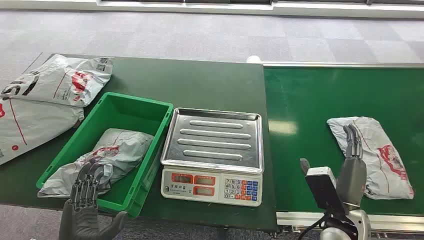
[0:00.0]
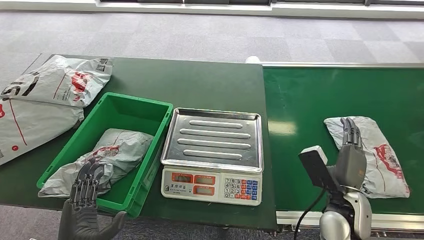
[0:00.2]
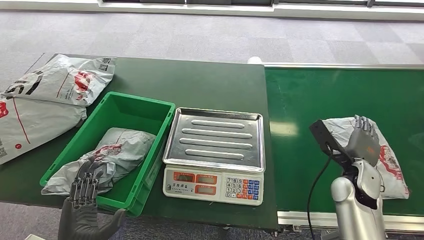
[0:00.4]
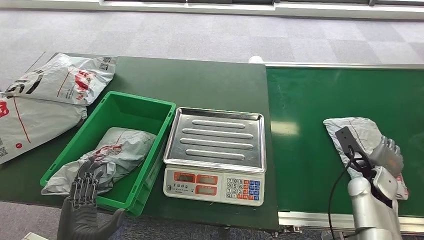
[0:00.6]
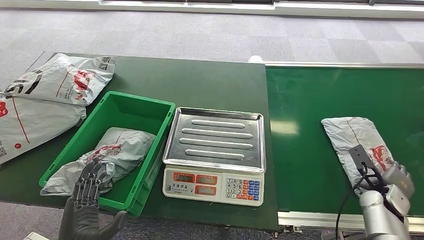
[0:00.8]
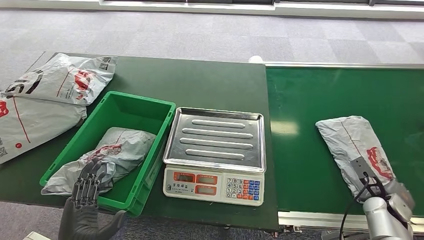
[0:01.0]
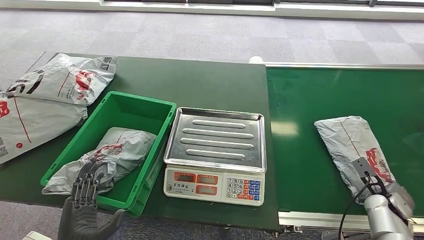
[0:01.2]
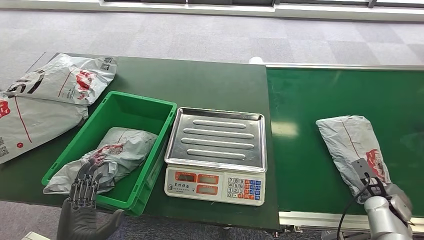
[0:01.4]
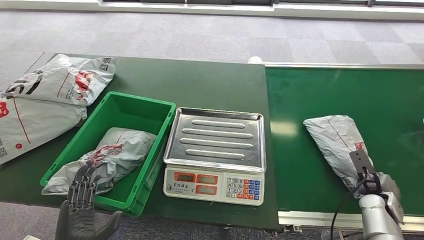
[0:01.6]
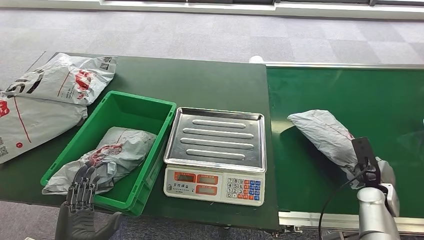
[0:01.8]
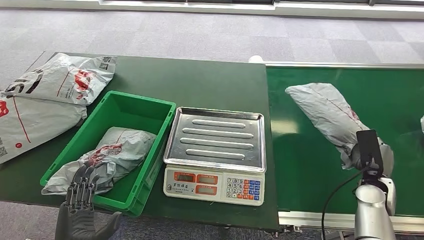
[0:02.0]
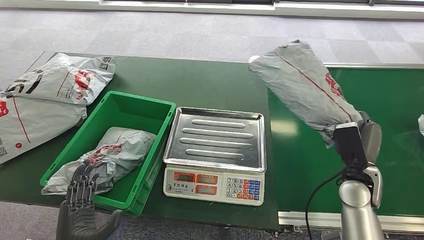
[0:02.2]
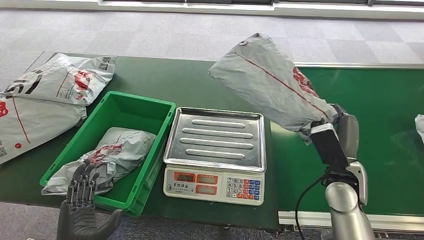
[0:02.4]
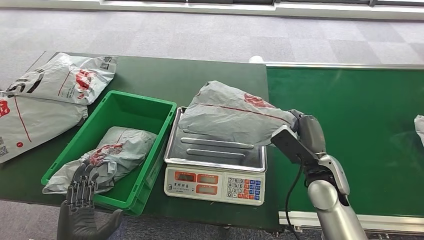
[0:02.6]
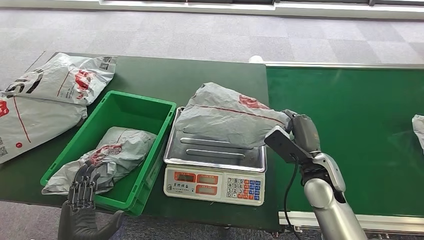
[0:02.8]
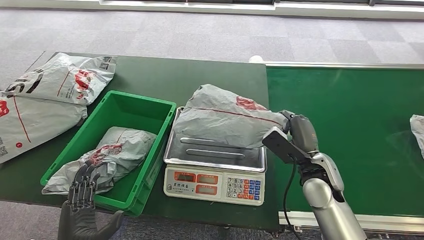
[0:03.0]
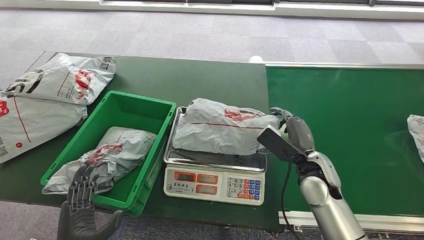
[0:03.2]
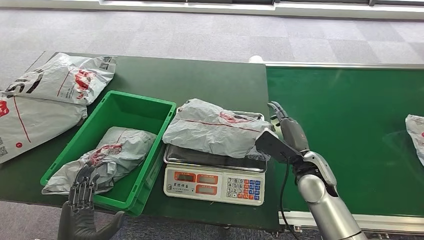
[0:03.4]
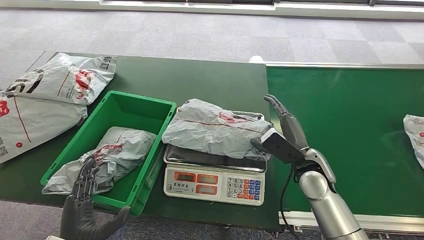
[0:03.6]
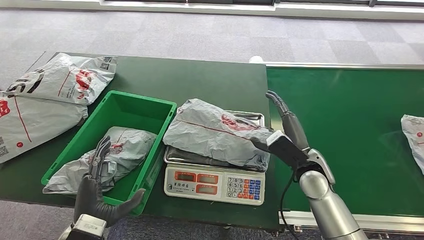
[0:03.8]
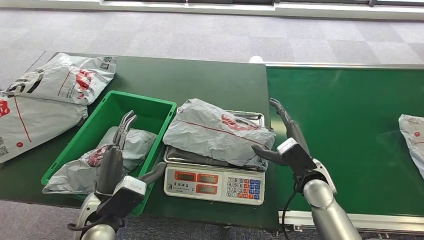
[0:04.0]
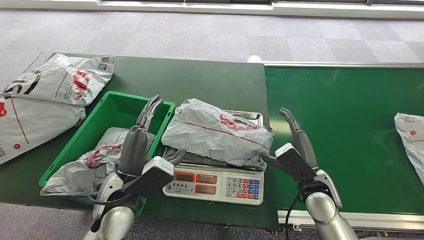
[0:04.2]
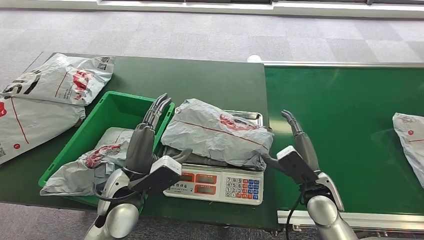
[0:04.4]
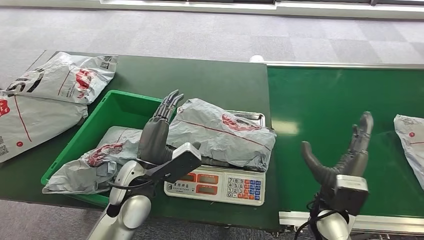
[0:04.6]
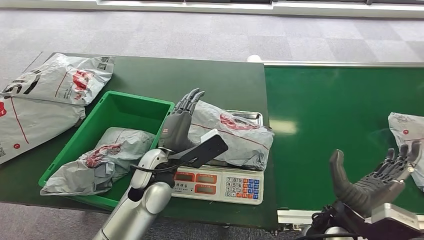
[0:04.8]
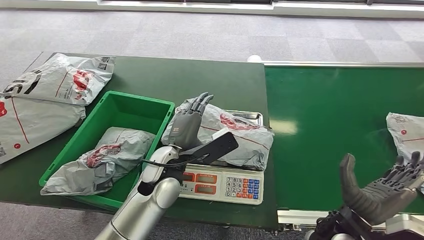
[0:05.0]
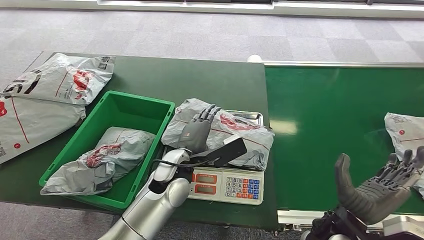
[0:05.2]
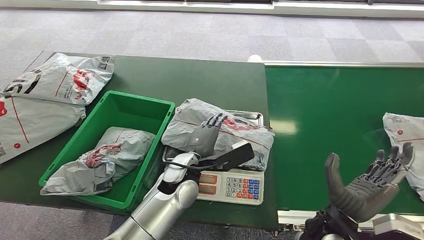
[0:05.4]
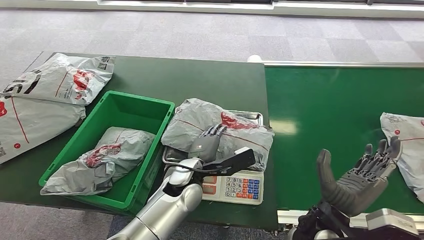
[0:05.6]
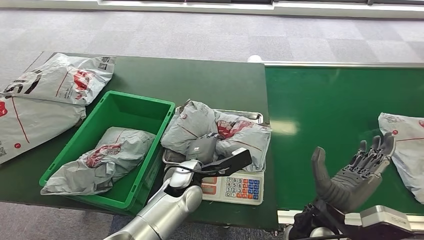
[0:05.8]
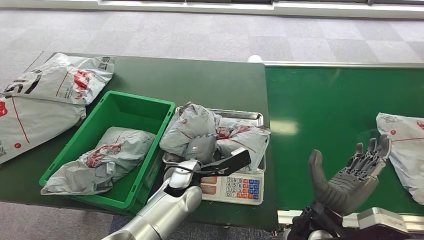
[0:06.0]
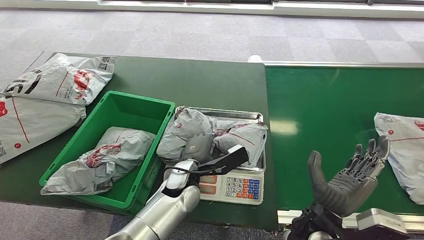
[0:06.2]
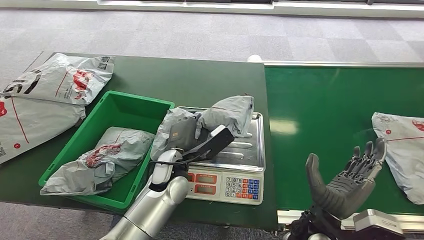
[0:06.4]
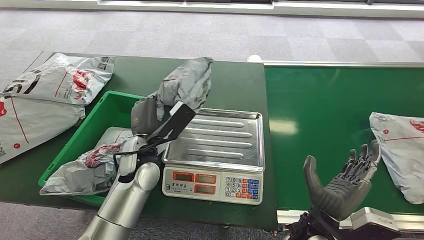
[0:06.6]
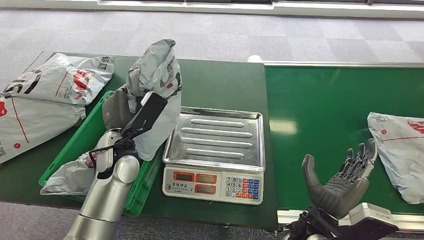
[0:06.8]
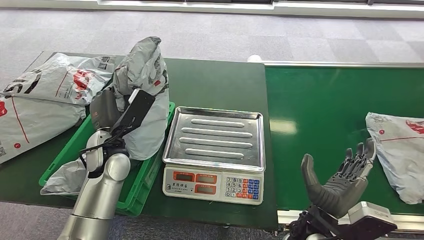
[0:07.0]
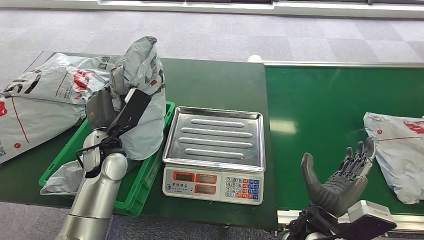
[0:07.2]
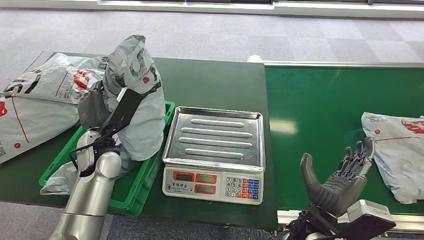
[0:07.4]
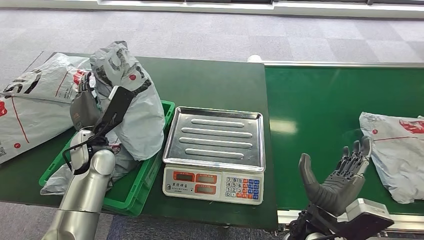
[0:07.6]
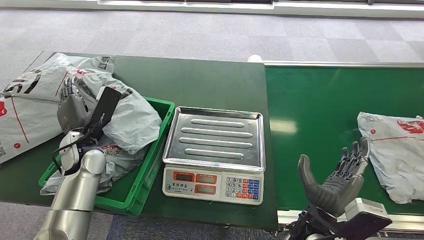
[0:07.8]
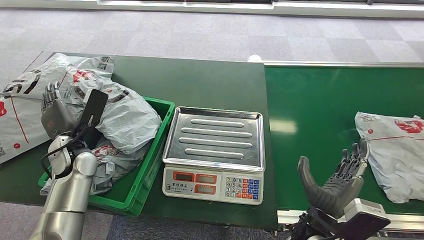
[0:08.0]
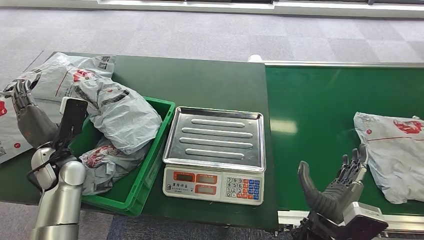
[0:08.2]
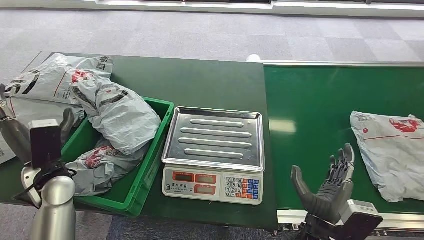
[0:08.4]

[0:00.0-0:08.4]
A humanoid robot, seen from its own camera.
Step, 0:00.0 to 0:02.2: Pick up the package from the conveyor belt.
Step, 0:02.4 to 0:03.6: Place the package onto the inbound machine.
Step, 0:05.6 to 0:07.0: Pick up the package from the inbound machine.
Step, 0:07.4 to 0:08.4: Place the package into the parcel locker.
0:04.2 to 0:05.6: The right hand is displaced backward and to the left by roughly 10 cm. The left hand shifts about 15 cm to the right.
